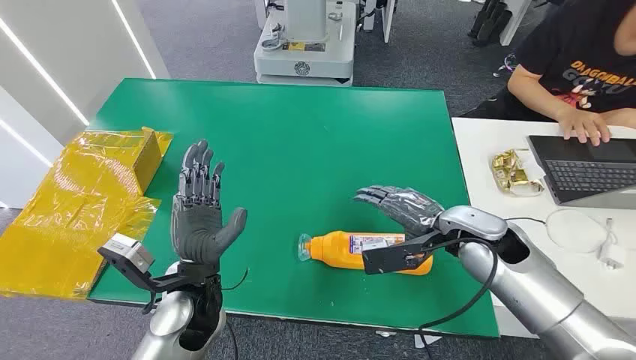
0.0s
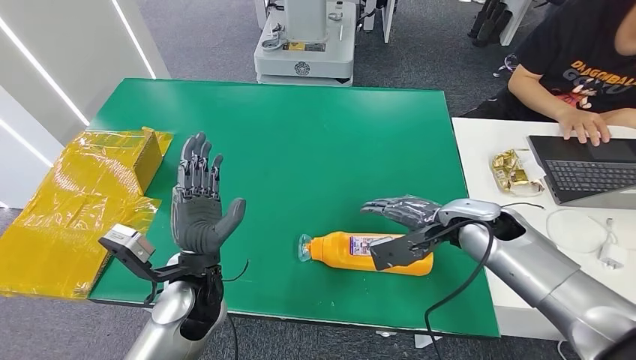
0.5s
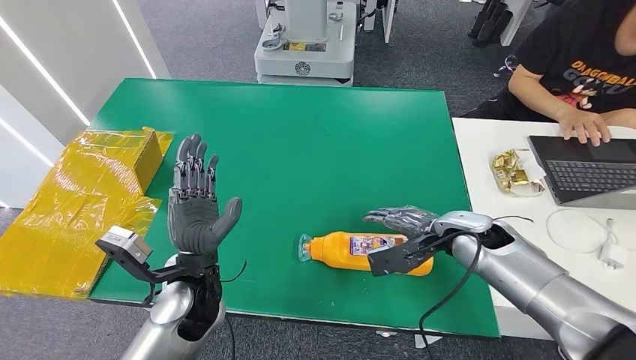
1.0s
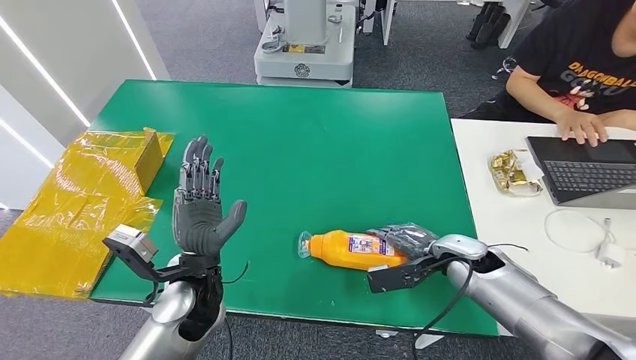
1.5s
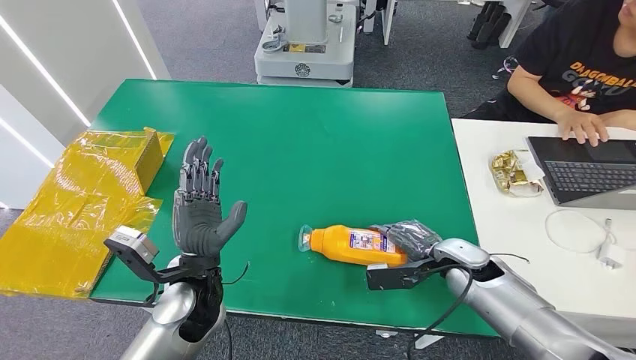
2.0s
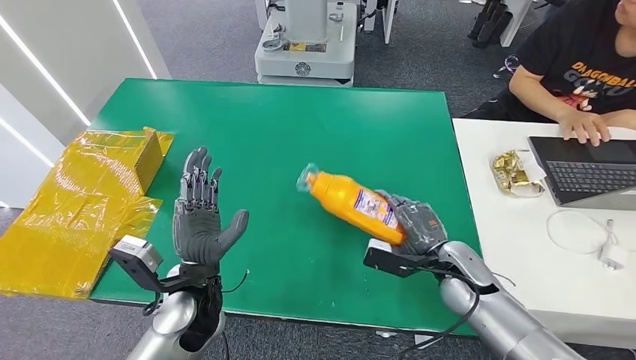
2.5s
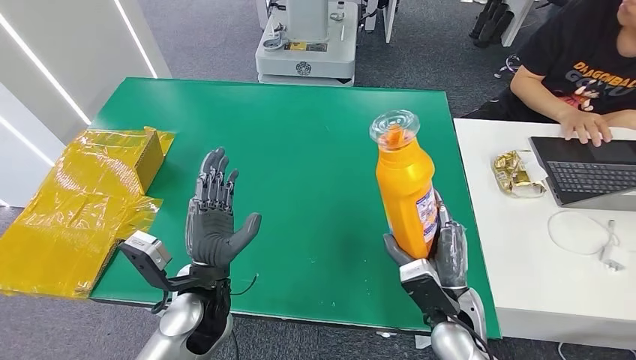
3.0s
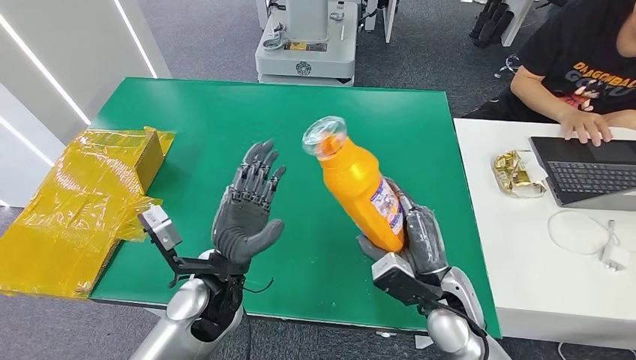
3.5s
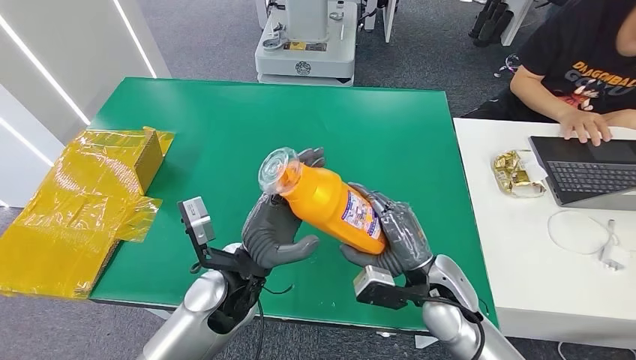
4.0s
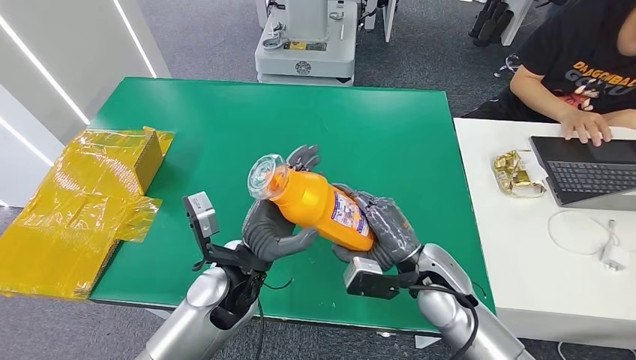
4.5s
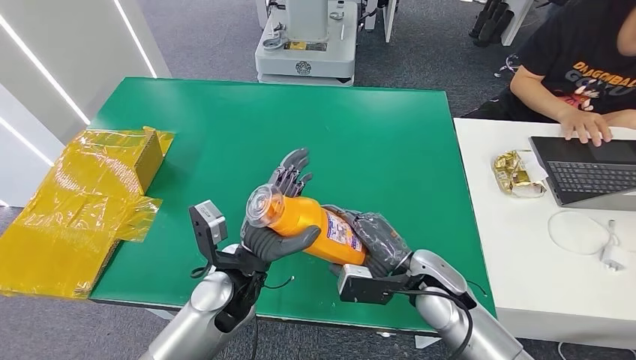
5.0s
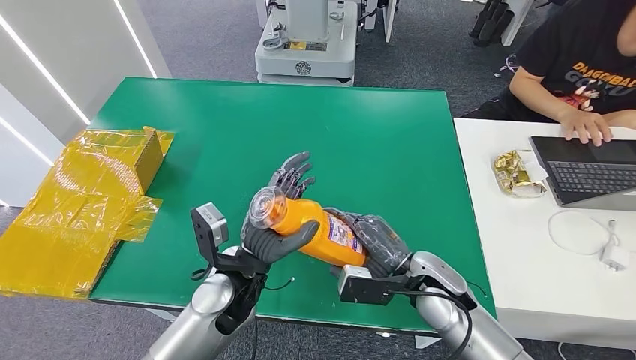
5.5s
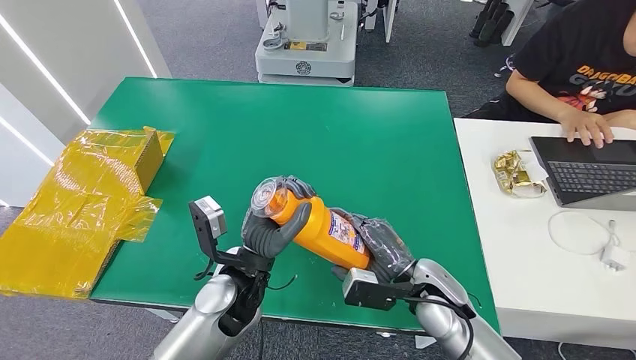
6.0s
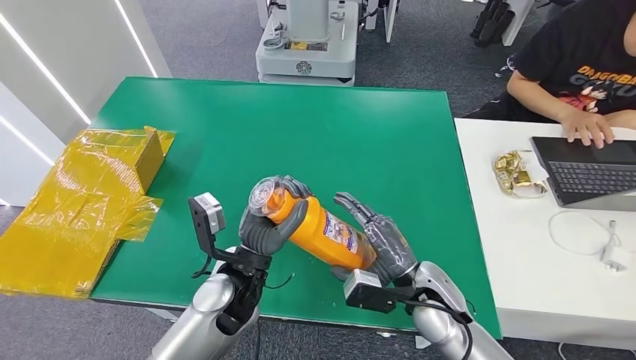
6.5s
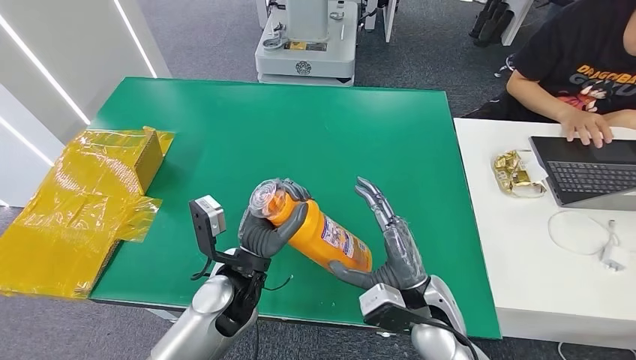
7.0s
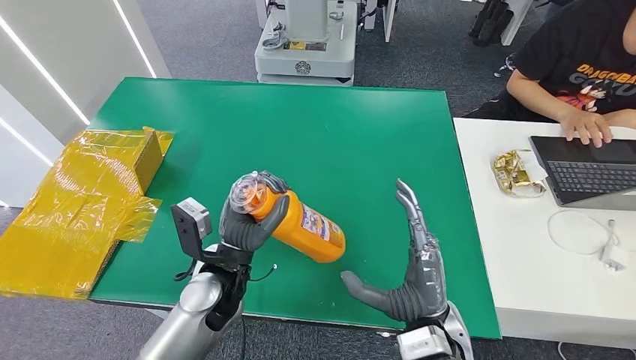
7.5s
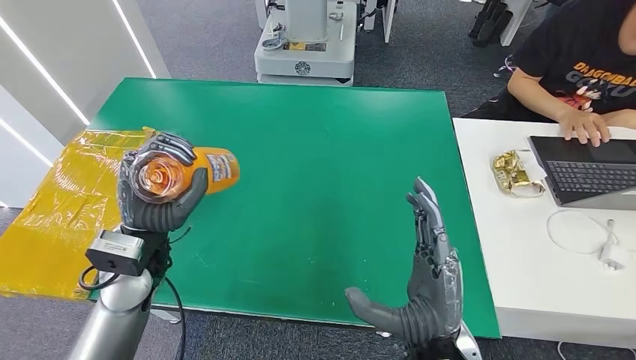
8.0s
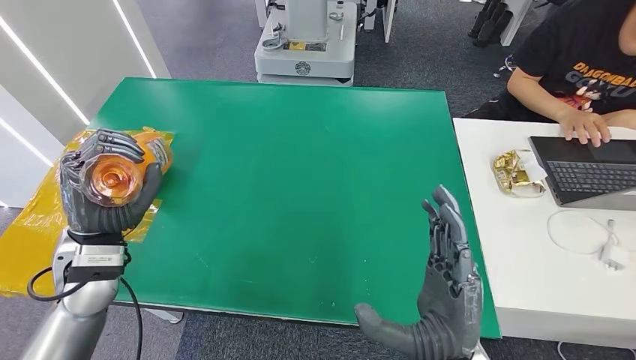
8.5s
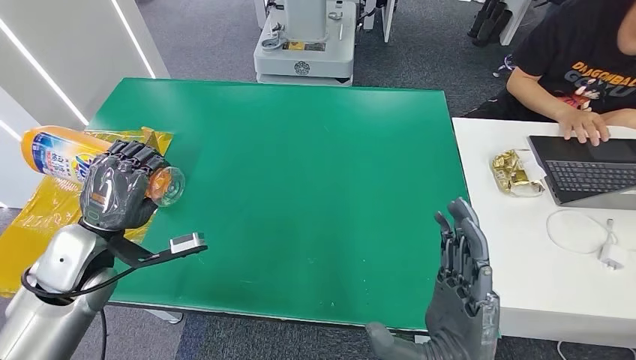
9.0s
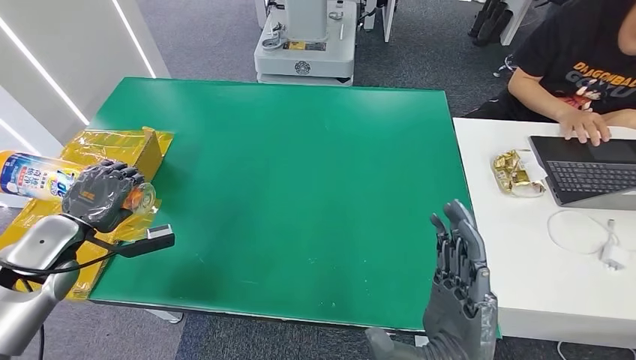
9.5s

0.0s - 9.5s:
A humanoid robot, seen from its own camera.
Step, 0.0s - 4.0s: Pick up the bottle from the table.
5.5s - 7.5s: The right hand travels backward by some 10 cm.
7.5s - 9.5s: The left hand moves to the left, roughly 30 cm, while the right hand goes about 5 cm backward.

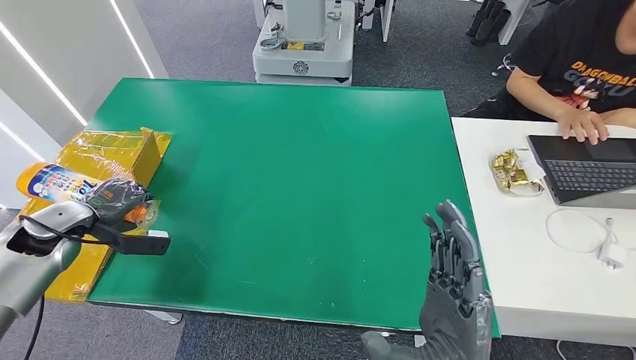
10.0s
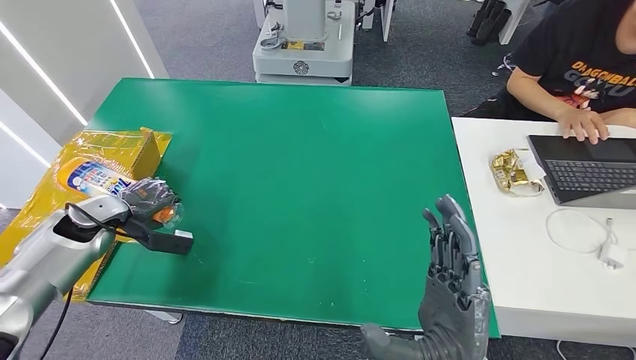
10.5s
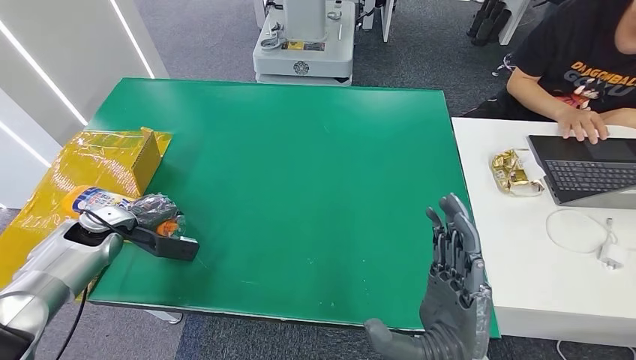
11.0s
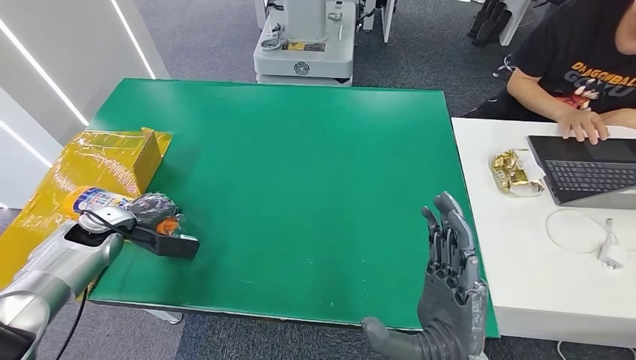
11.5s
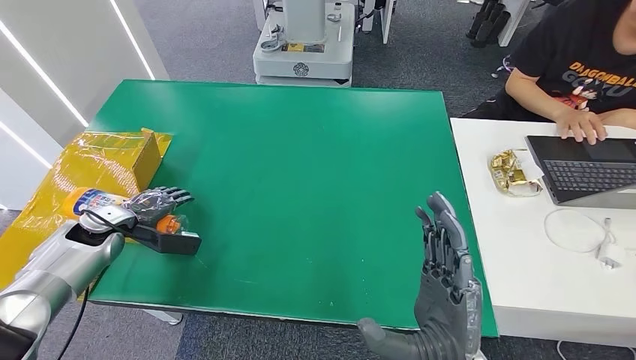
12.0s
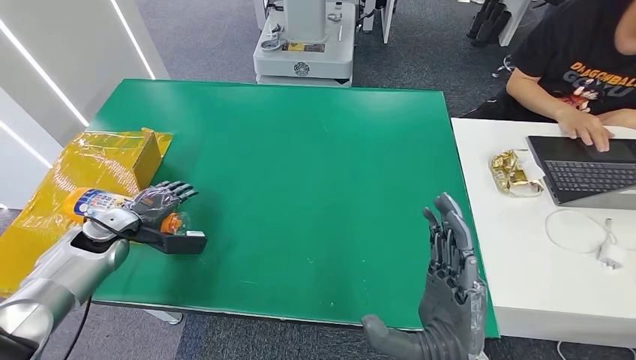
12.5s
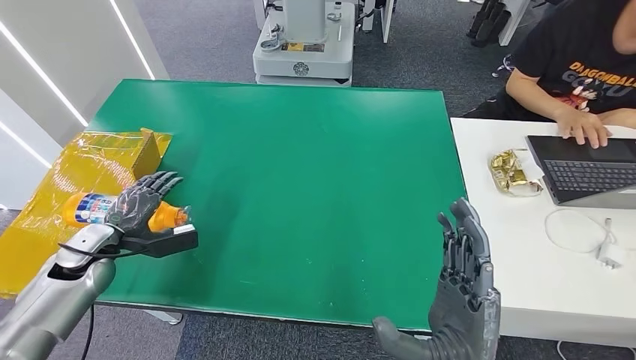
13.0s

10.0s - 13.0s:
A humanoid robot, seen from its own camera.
Step, 10.0s - 13.0s: Turn the bottle to the front side.
10.0s - 11.5s: The left hand moves downward, some 5 cm.
11.5s - 13.0s: The left hand goes approximately 5 cm backward.

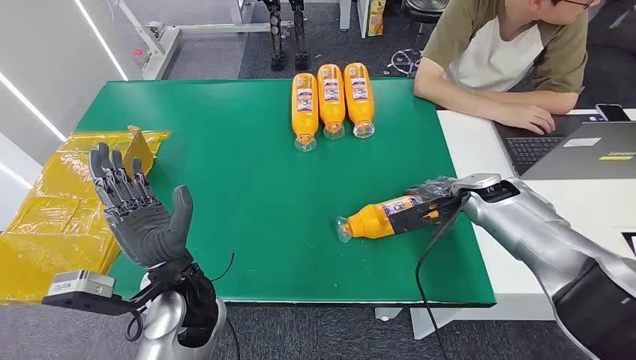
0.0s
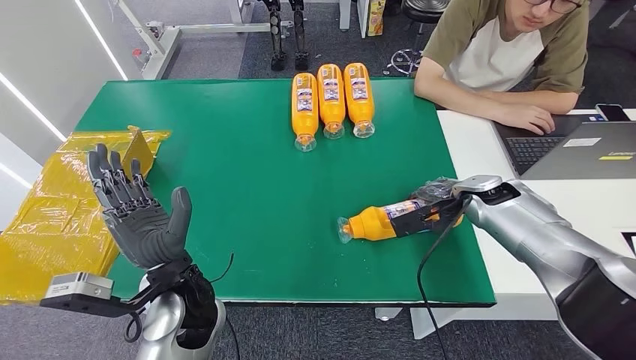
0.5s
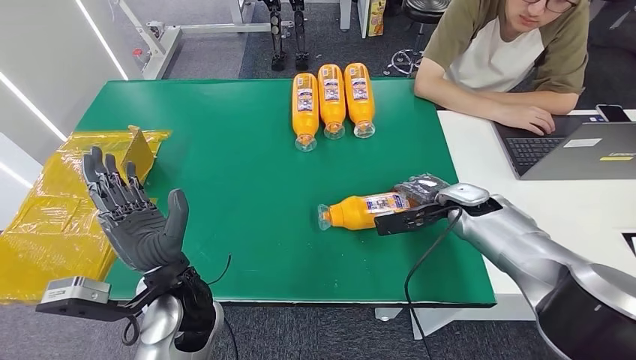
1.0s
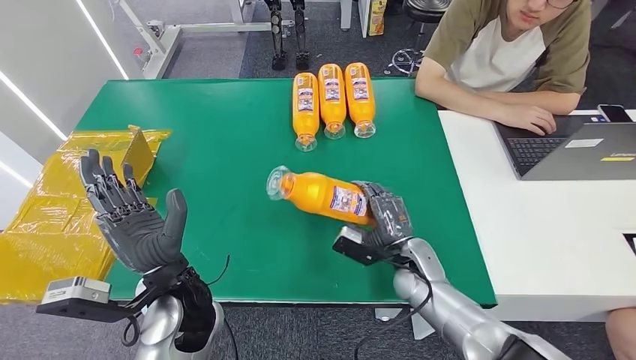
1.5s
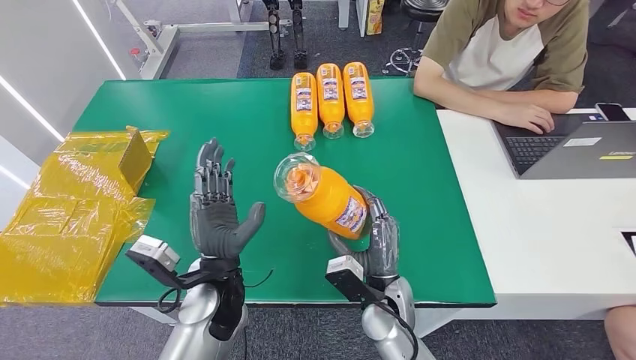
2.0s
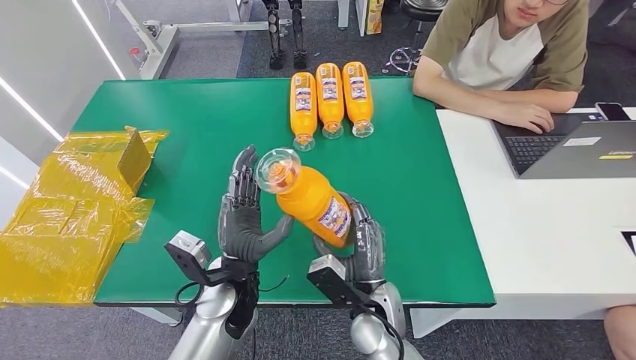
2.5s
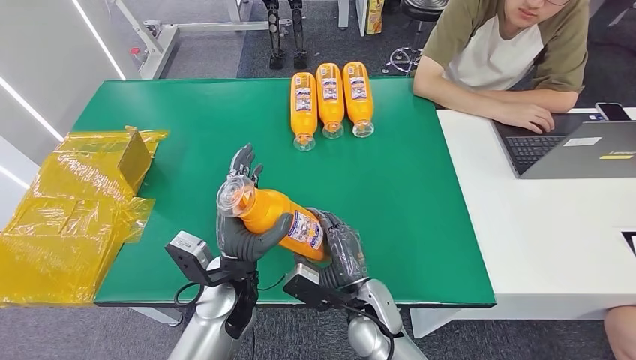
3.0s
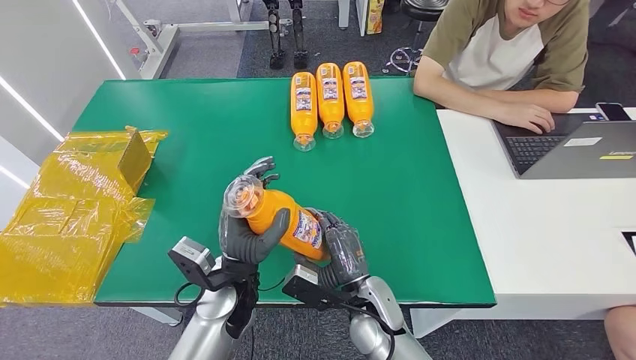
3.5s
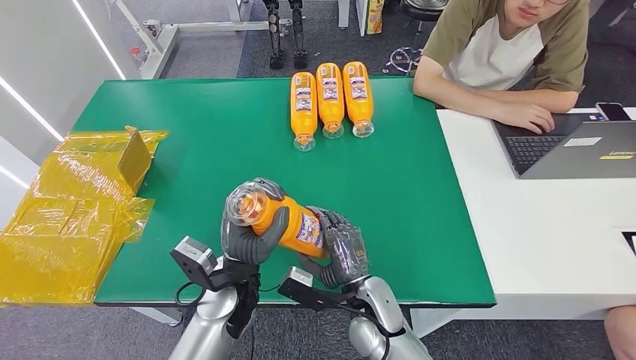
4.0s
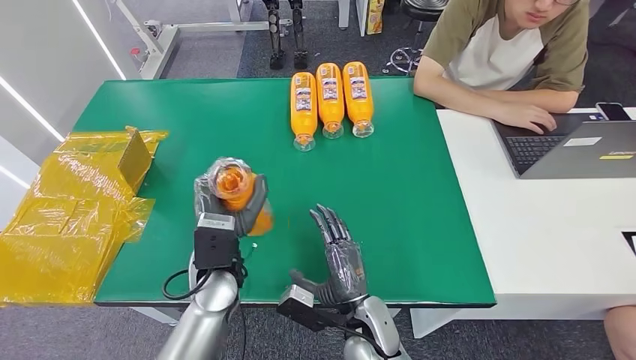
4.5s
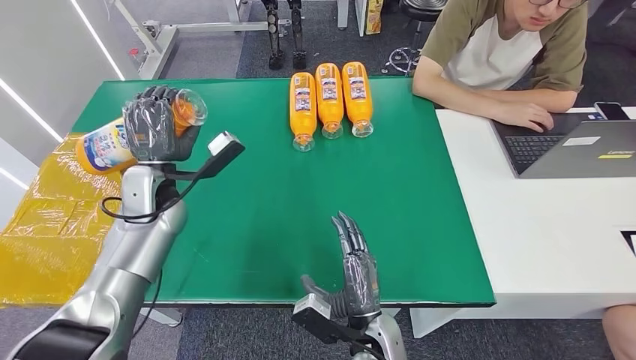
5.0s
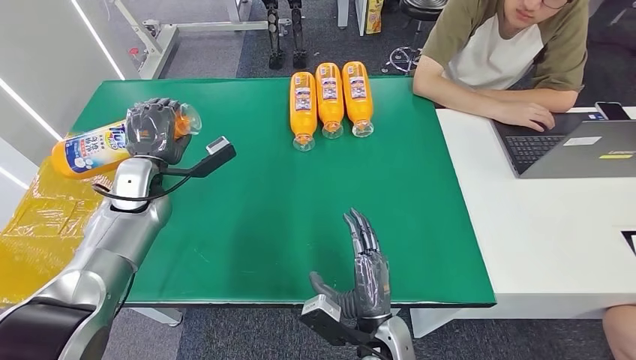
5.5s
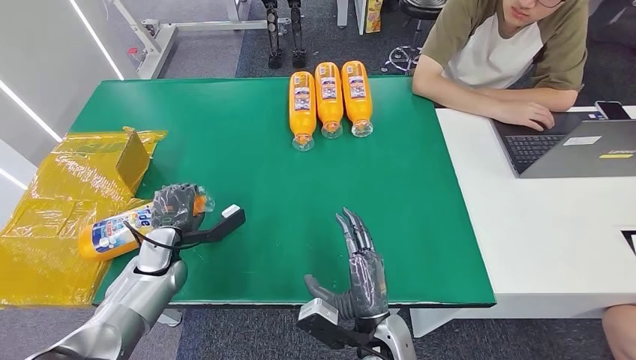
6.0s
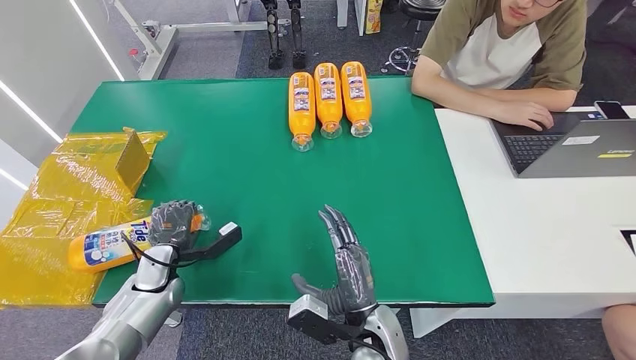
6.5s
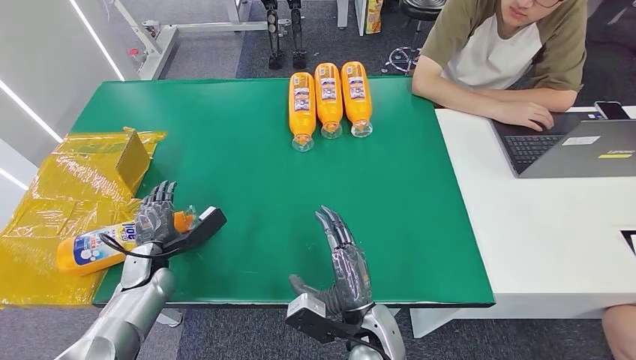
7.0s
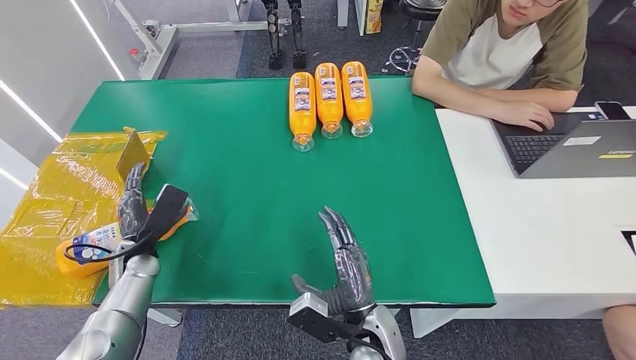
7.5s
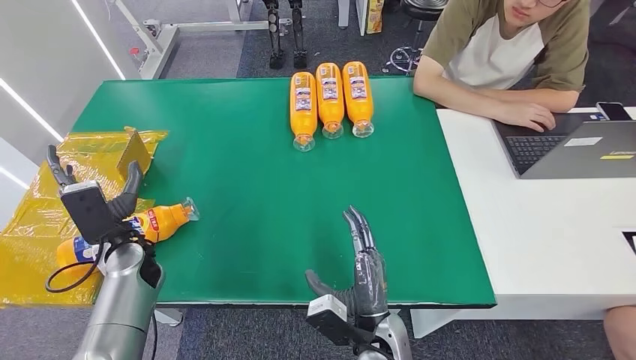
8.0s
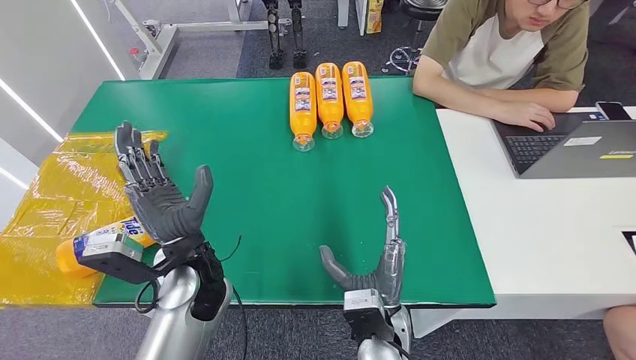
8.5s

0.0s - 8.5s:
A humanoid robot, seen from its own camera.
Step, 0.0s - 2.5s: Pick up the bottle from the table.
Step, 3.0s - 8.5s: Turn the bottle to the front side.
4.0s - 6.5s: The right hand ends up some 5 cm from where it was, while the left hand shifts about 20 cm to the left.
6.5s - 8.5s: The left hand heads to the right and upward, covering roughly 20 cm.
